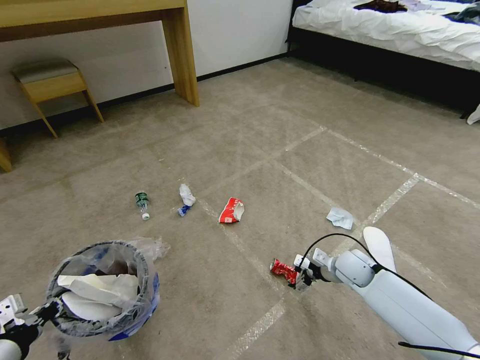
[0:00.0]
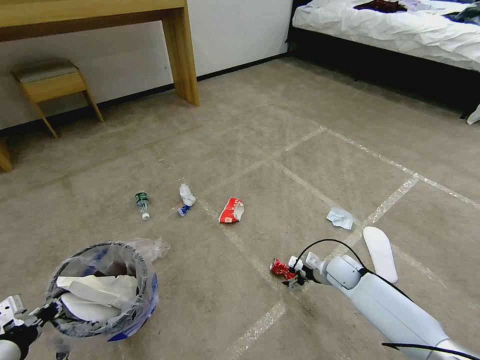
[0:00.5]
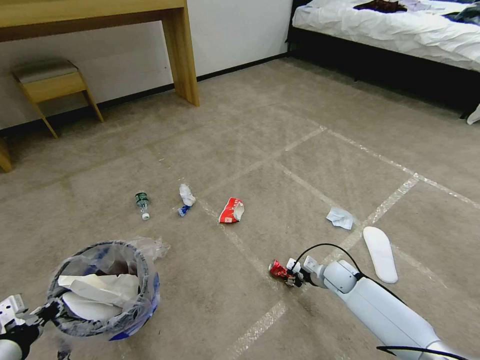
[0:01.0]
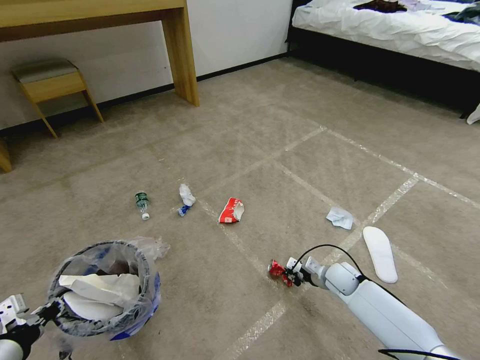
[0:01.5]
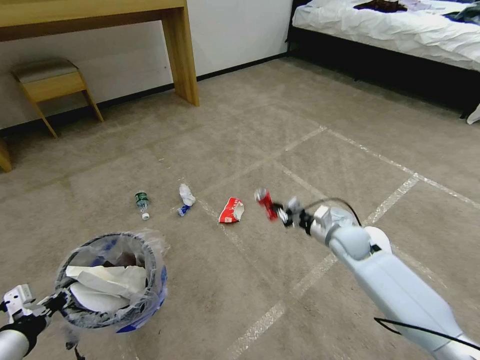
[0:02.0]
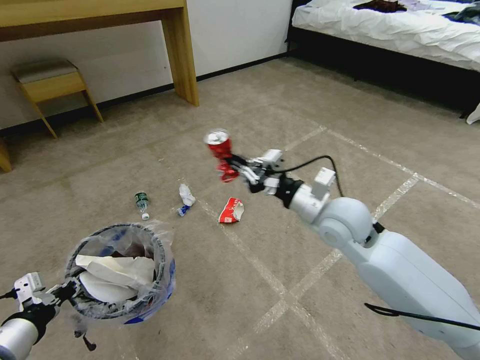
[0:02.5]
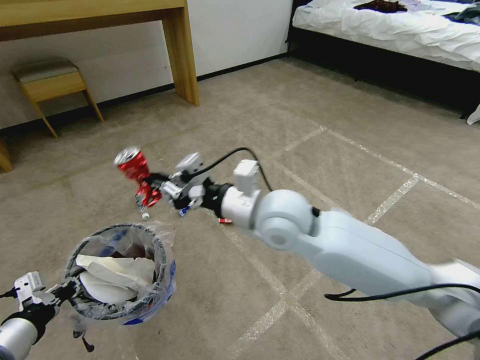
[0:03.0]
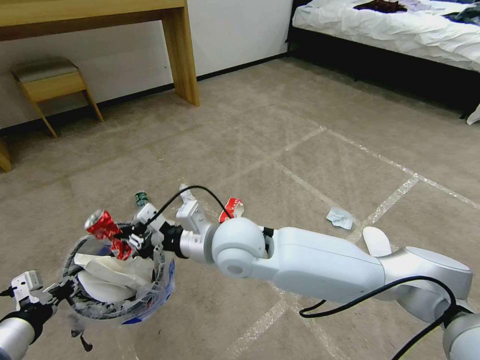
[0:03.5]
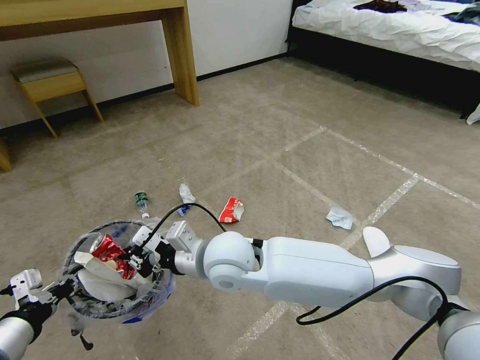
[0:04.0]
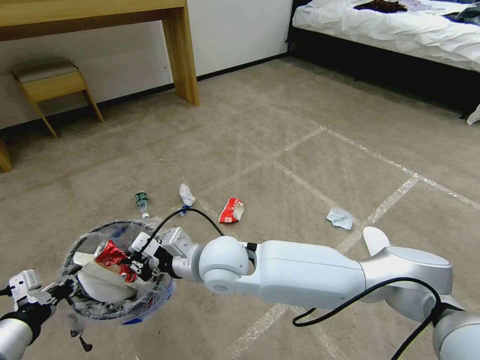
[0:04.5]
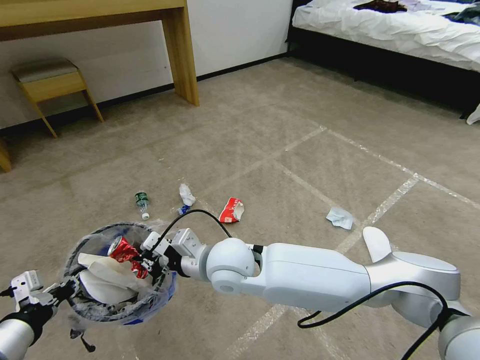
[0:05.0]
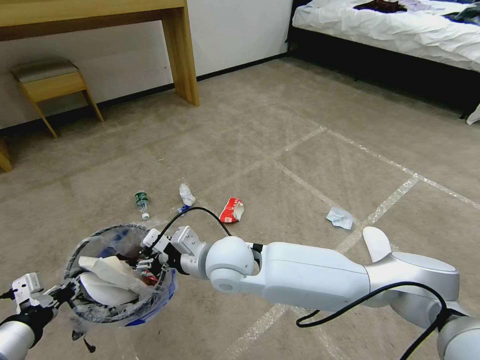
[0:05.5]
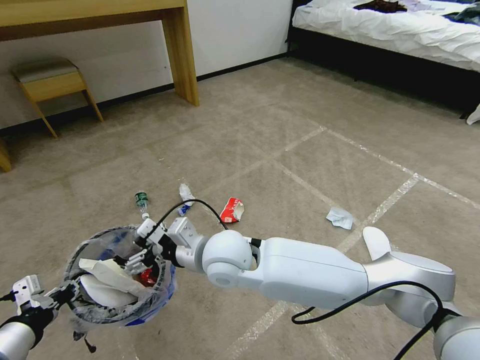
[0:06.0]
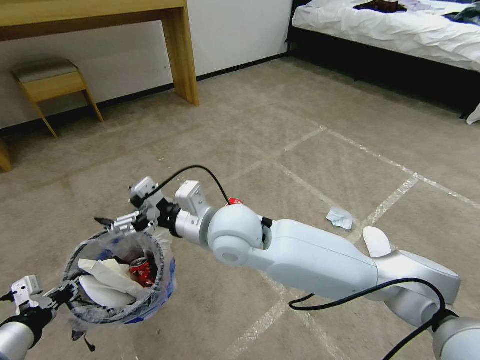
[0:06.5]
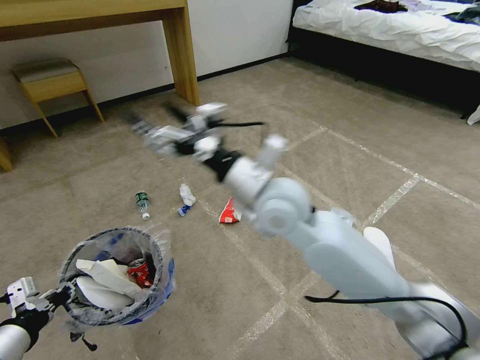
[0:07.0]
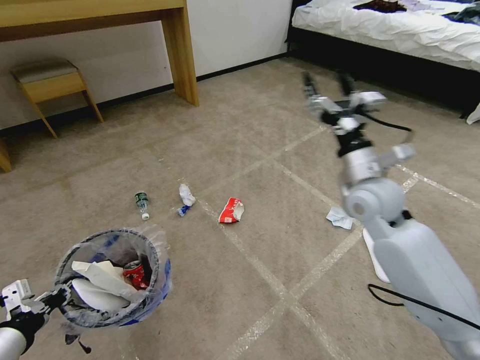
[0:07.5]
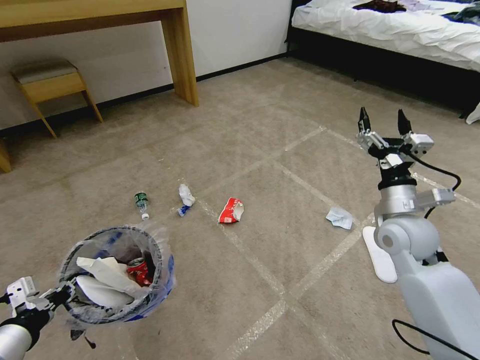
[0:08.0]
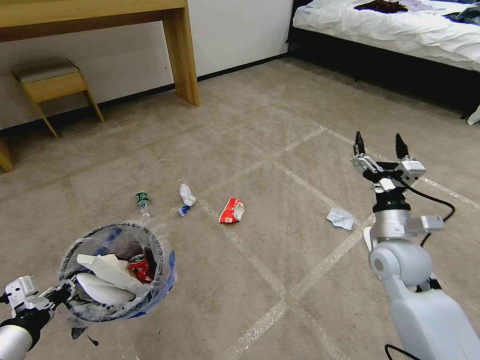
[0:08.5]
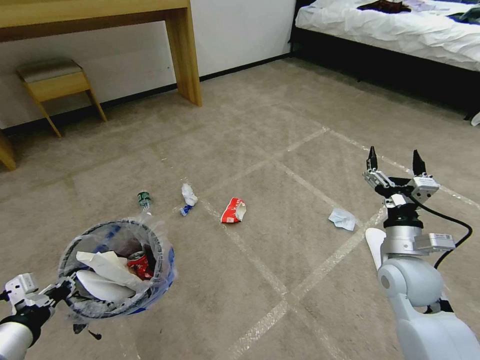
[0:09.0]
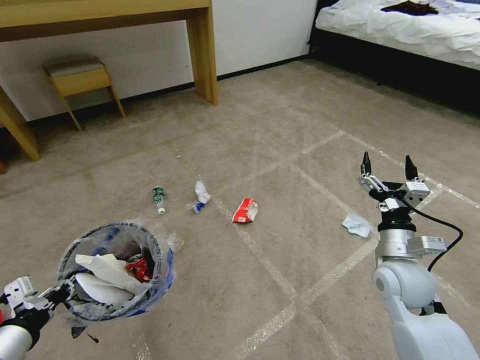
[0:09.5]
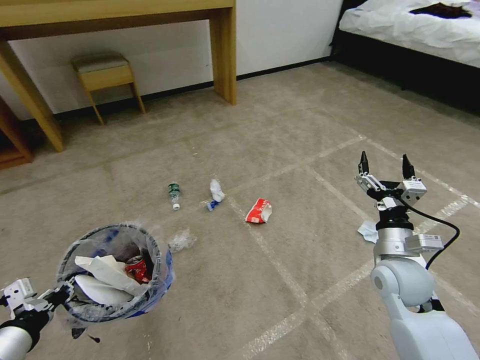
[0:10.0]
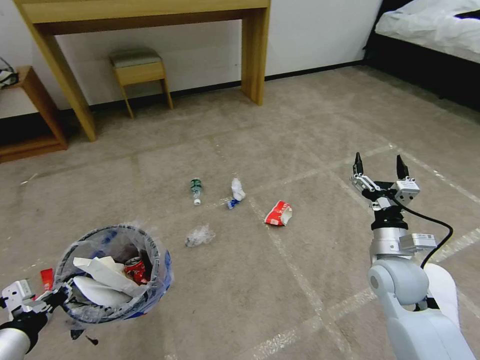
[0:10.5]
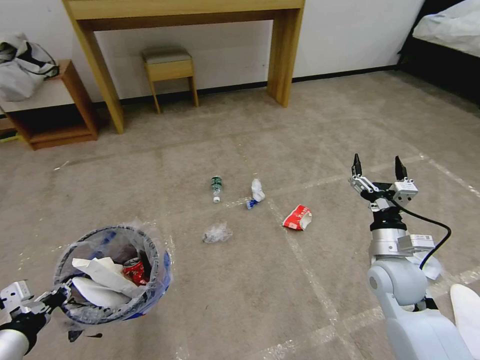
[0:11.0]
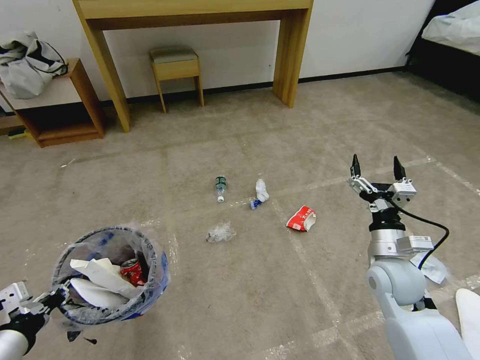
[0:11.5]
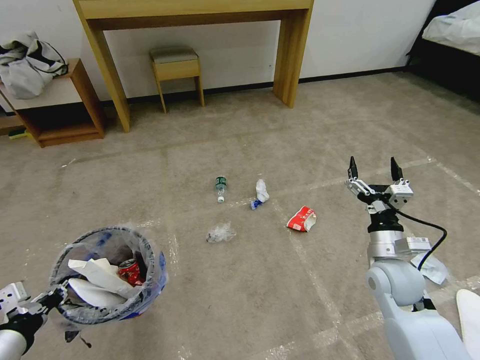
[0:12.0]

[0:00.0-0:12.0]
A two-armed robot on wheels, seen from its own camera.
Task of the whole recording: Pick up the trash bin and place the garbage on the floor into it.
0:00.0 to 0:02.0: The right gripper is displaced upward by some 10 cm, and closes its fingers.
0:02.0 to 0:04.0: The right gripper shifts roughly 30 cm to the left.
0:04.0 to 0:06.0: The right gripper opens its fingers.
0:06.0 to 0:08.0: The right gripper is displaced to the right by approximately 35 cm.
0:08.0 to 0:10.0: The right gripper shifts roughly 10 cm downward and backward.

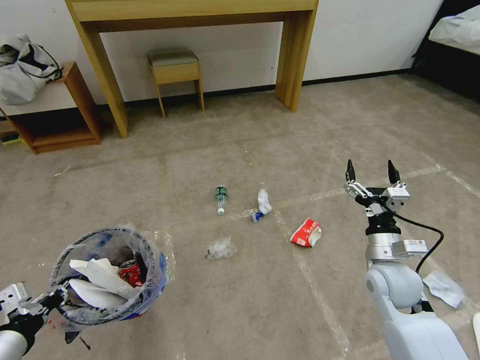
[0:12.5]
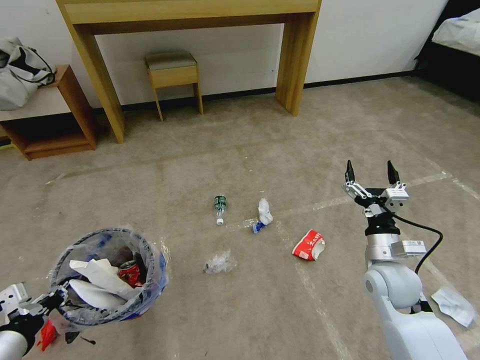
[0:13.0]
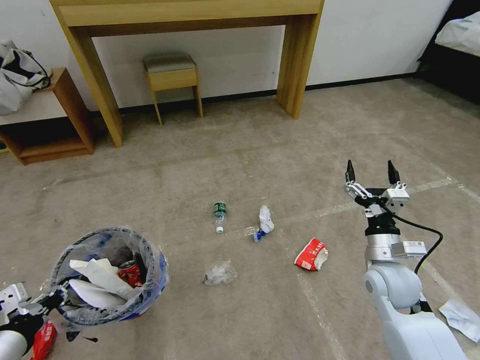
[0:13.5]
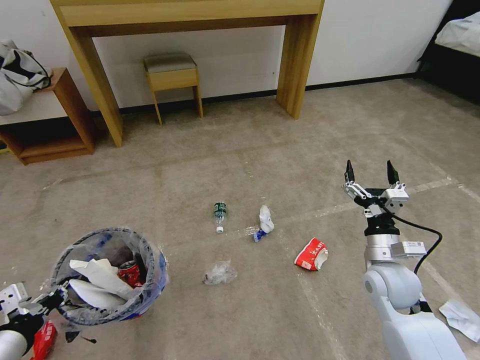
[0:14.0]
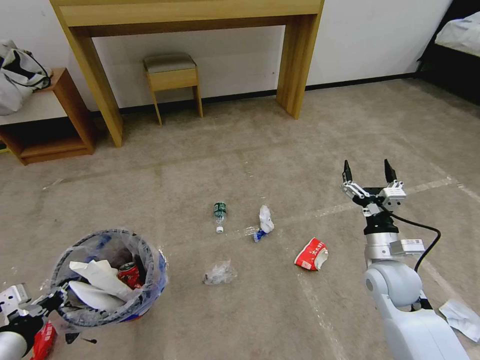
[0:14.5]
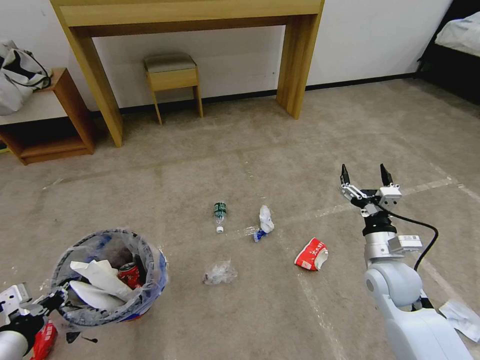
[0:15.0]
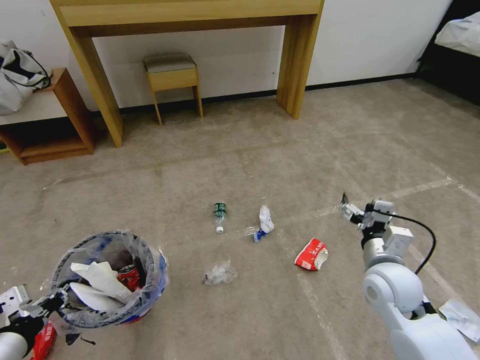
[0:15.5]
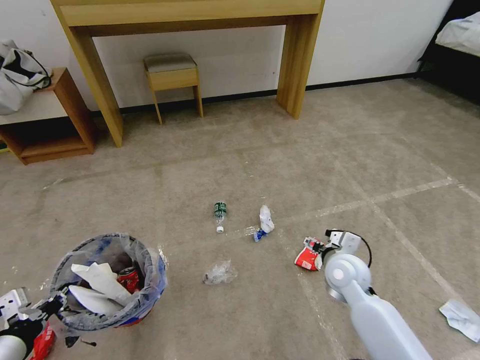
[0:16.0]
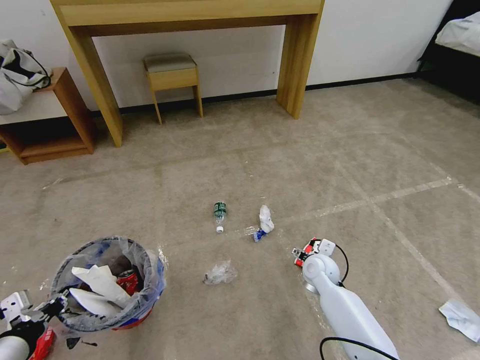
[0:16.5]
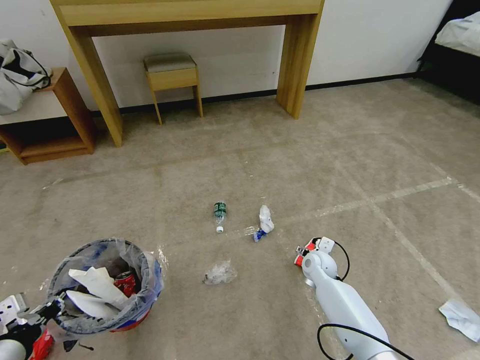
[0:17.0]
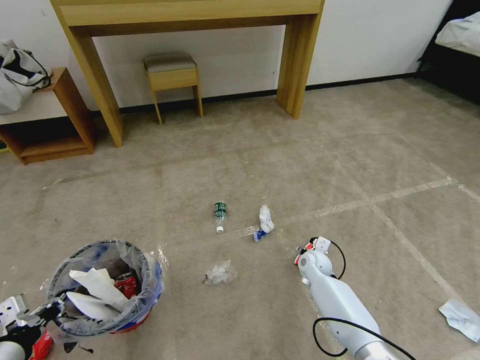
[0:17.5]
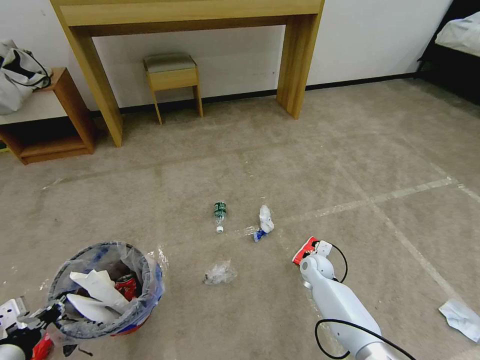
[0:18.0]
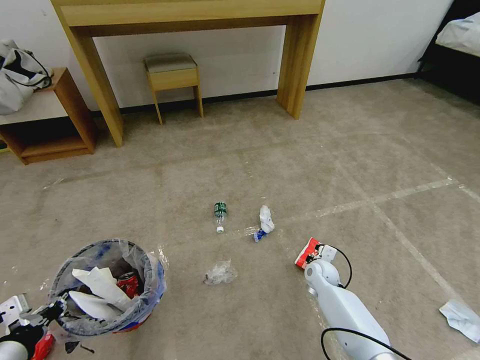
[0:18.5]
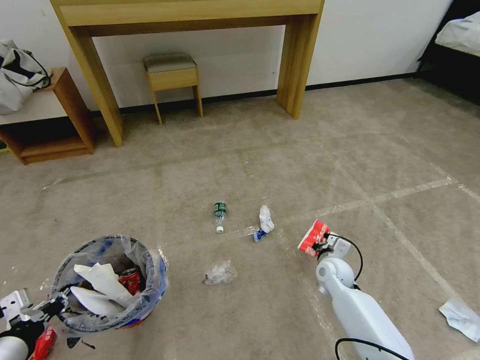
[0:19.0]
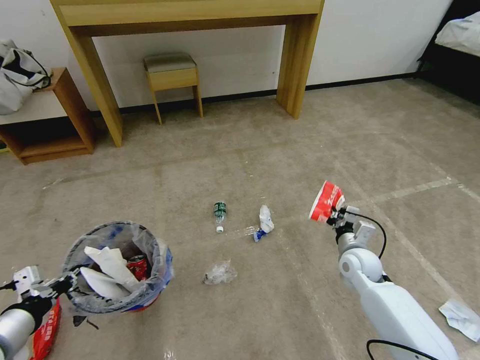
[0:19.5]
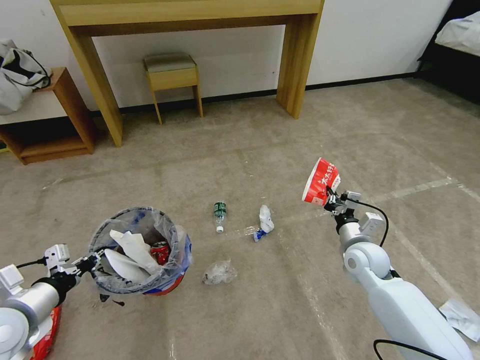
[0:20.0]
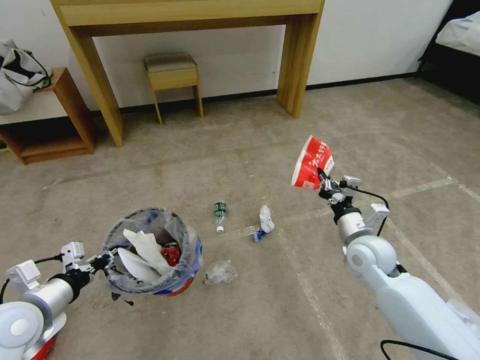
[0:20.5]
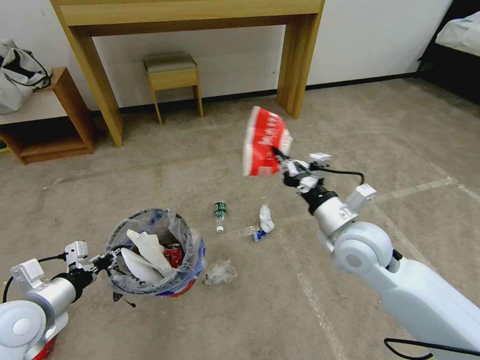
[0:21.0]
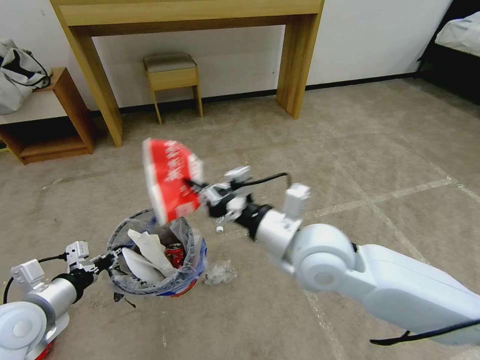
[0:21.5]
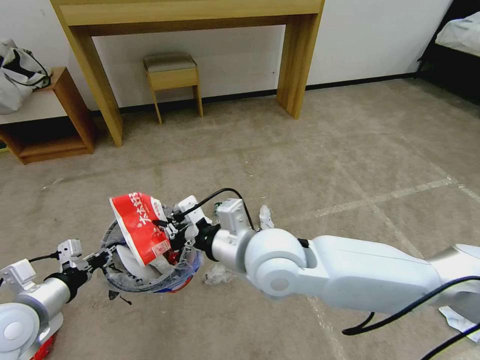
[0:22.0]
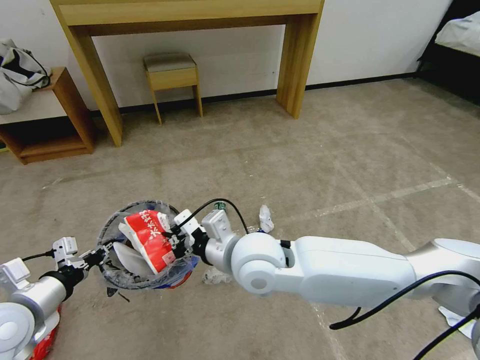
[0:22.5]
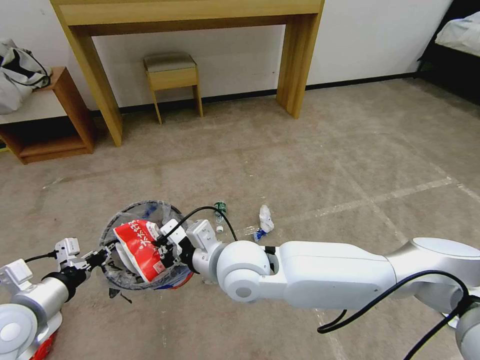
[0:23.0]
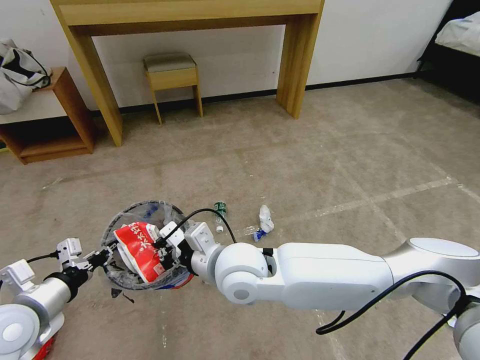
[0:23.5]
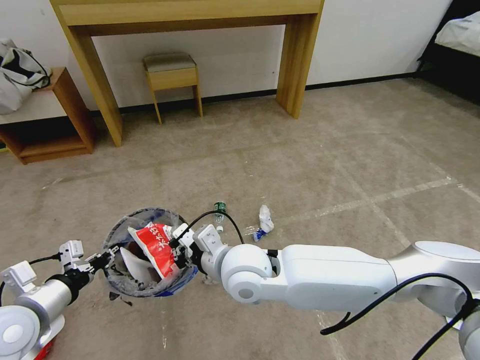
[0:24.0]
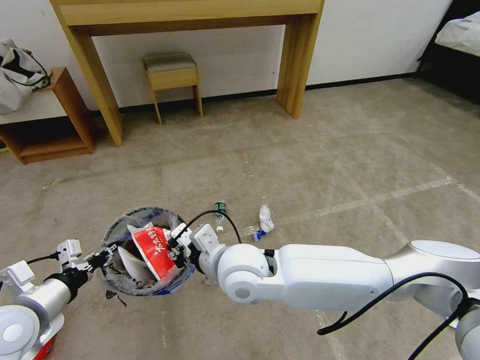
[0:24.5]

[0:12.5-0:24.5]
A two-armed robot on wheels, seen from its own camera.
Task of the whole recording: Pick up the trash bin and place the garbage on the floor into it.
0:12.5 to 0:14.5: The two grippers keep their place.
0:14.5 to 0:16.5: The right gripper moves downward, to the left and forward, approximately 20 cm.
0:16.5 to 0:18.5: The right gripper is displaced downward by approximately 5 cm, and closes up.
0:18.5 to 0:20.5: The left gripper travels forward by roughly 10 cm. Meanwhile the right gripper heads upward, covering approximately 20 cm.
0:20.5 to 0:22.5: The right gripper is displaced to the left by roughly 25 cm.
0:22.5 to 0:24.5: There are only small adjustments of the grippers.

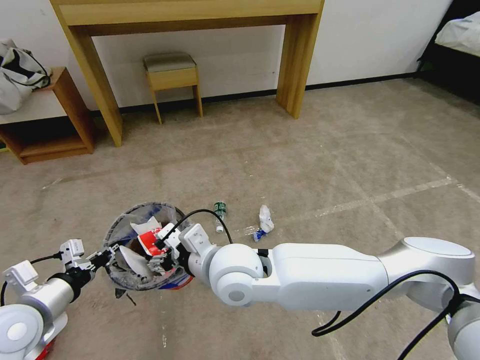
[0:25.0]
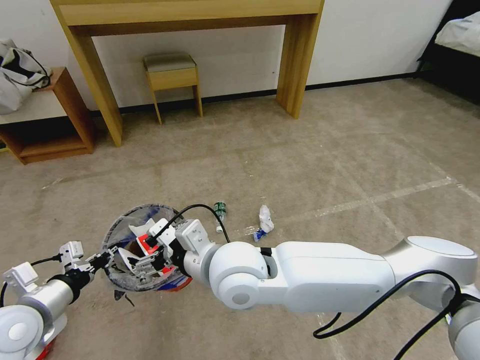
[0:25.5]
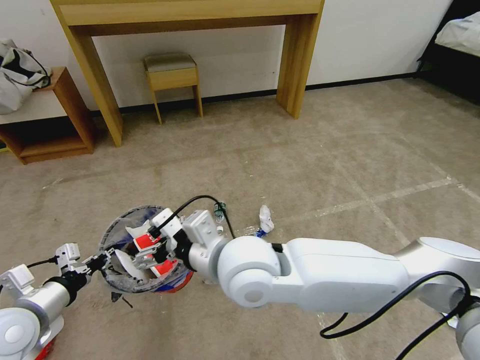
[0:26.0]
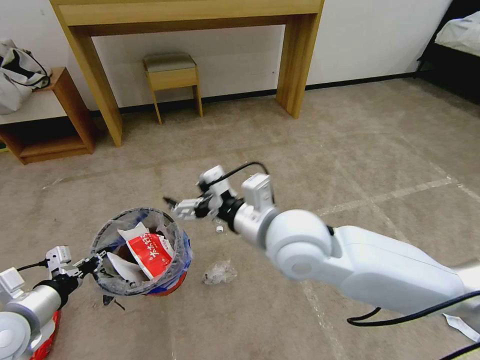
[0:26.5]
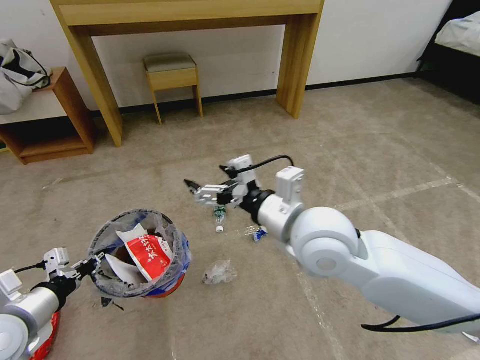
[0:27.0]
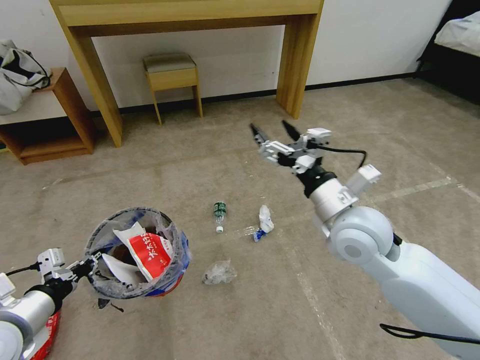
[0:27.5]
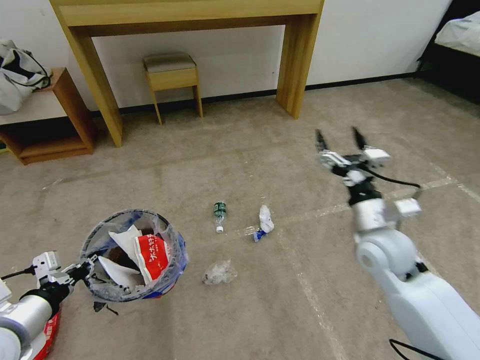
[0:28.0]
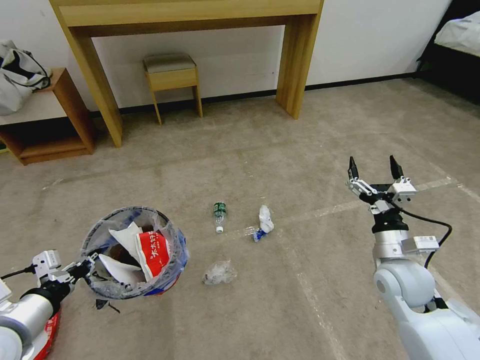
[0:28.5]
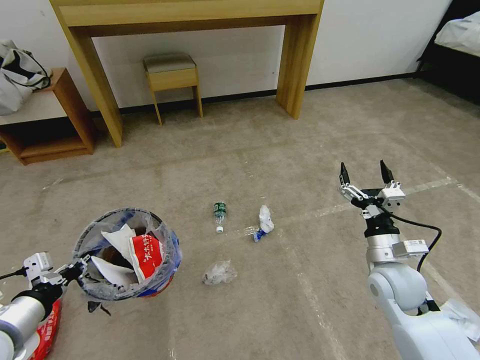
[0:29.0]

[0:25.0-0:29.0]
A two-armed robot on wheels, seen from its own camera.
Task of the whole recording: Pick up the trash bin and place the garbage on the floor into it.
0:25.0 to 0:27.0: The right gripper is displaced to the right and upward by roughly 15 cm.
0:27.0 to 0:29.0: The right gripper shifts some 30 cm to the right and downward.
